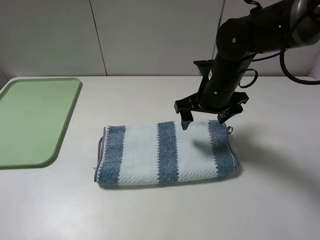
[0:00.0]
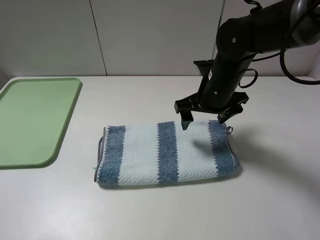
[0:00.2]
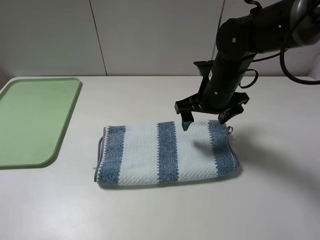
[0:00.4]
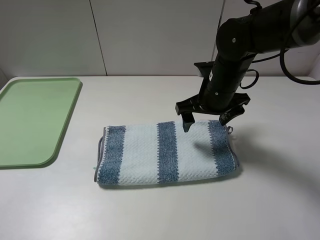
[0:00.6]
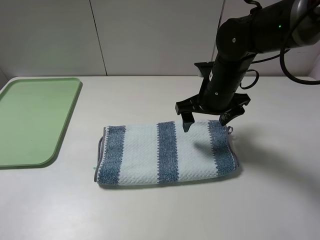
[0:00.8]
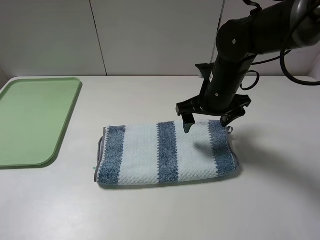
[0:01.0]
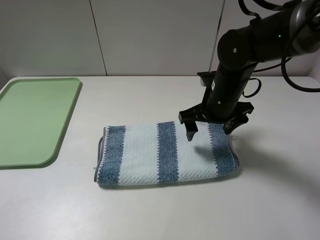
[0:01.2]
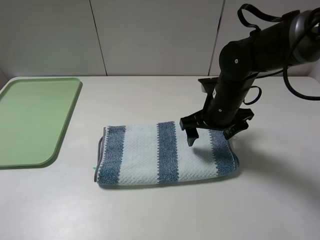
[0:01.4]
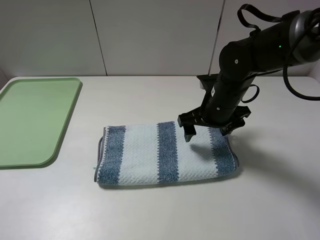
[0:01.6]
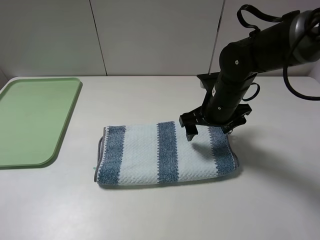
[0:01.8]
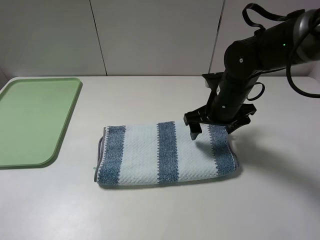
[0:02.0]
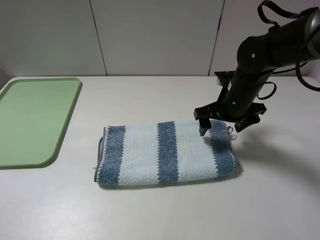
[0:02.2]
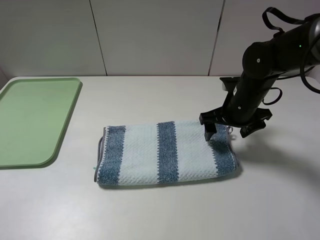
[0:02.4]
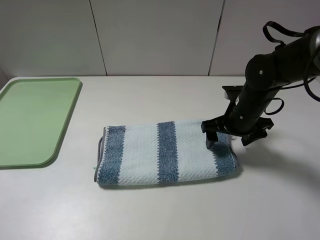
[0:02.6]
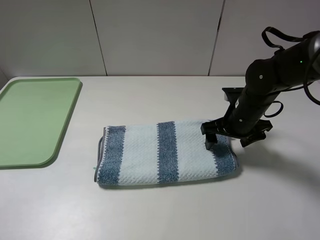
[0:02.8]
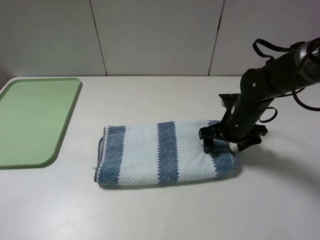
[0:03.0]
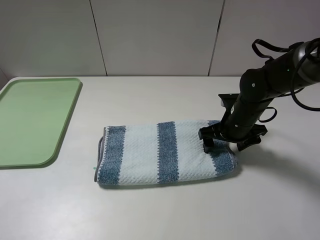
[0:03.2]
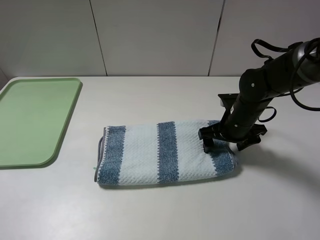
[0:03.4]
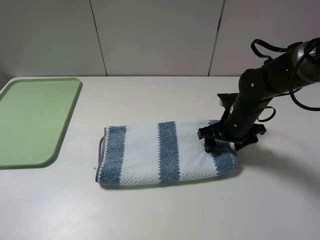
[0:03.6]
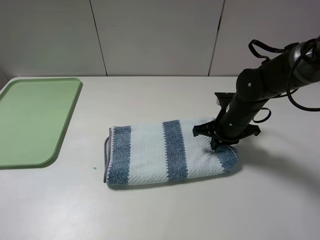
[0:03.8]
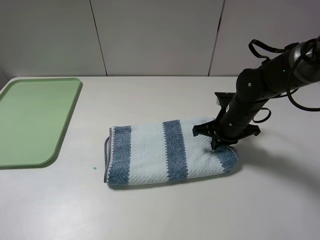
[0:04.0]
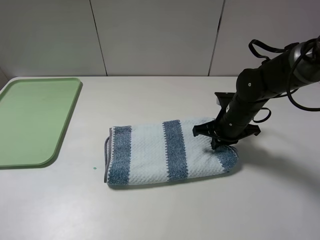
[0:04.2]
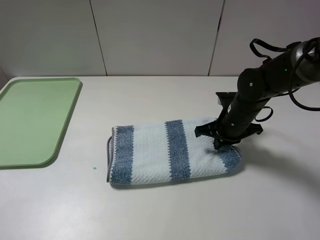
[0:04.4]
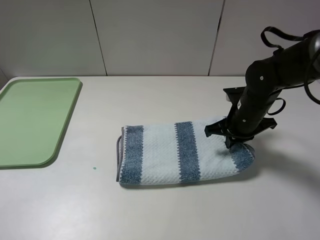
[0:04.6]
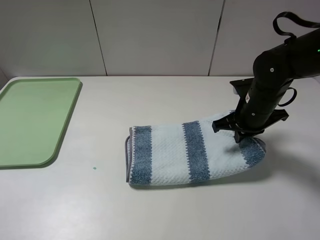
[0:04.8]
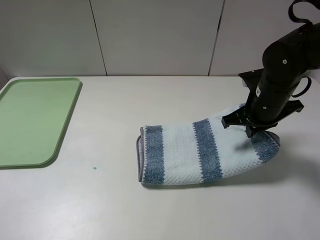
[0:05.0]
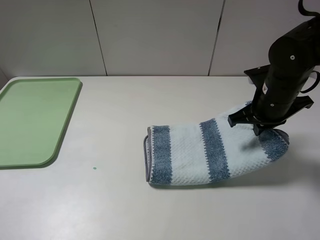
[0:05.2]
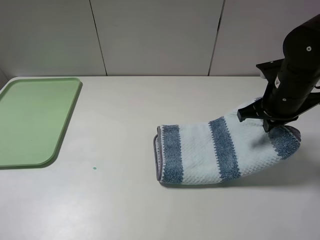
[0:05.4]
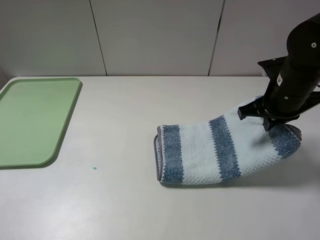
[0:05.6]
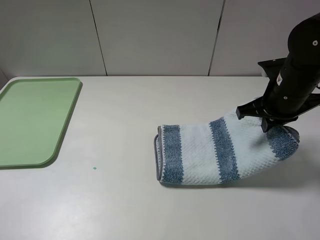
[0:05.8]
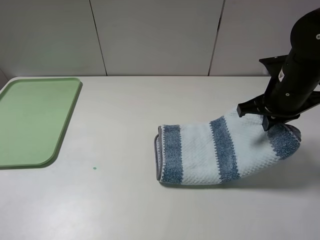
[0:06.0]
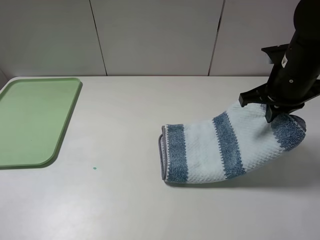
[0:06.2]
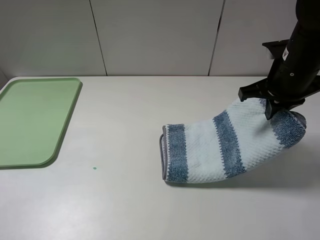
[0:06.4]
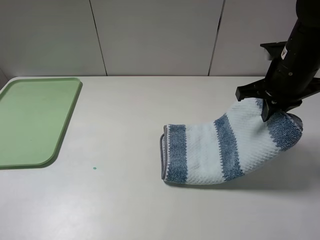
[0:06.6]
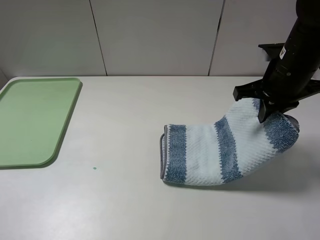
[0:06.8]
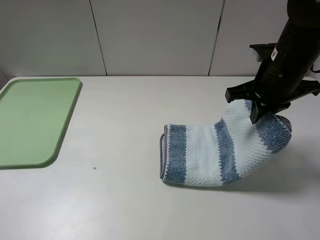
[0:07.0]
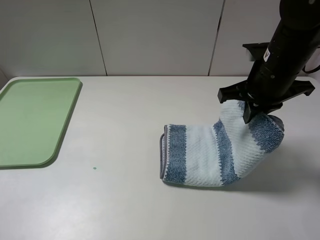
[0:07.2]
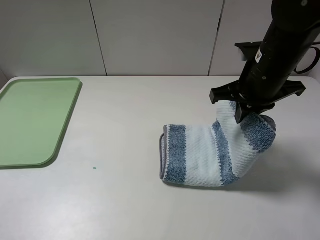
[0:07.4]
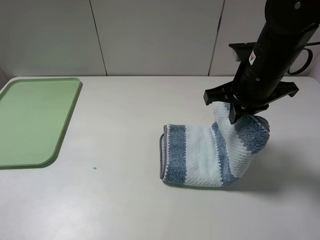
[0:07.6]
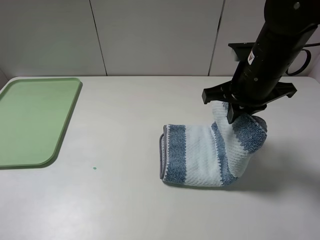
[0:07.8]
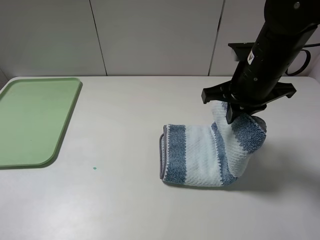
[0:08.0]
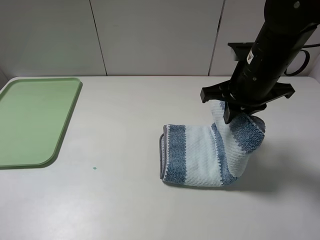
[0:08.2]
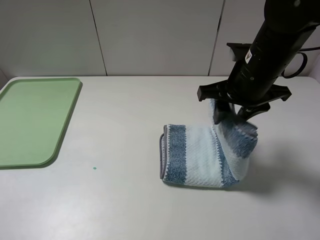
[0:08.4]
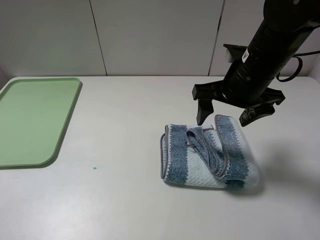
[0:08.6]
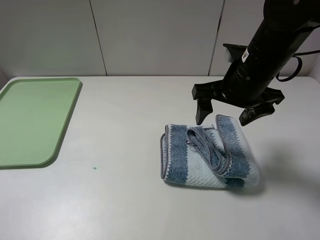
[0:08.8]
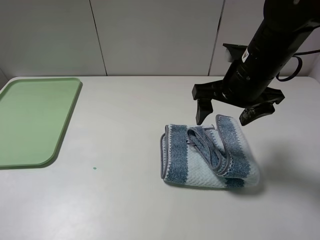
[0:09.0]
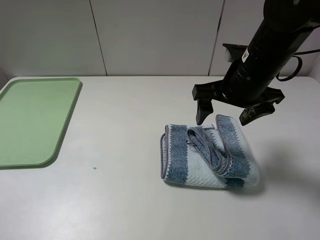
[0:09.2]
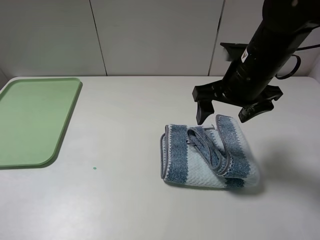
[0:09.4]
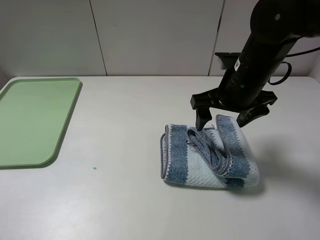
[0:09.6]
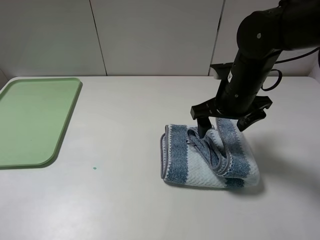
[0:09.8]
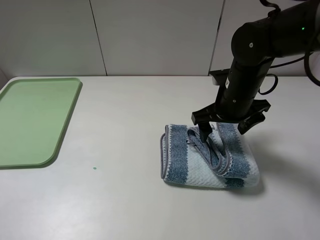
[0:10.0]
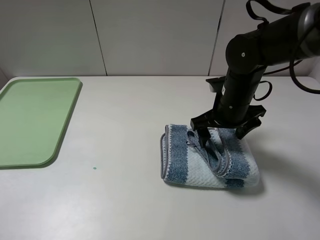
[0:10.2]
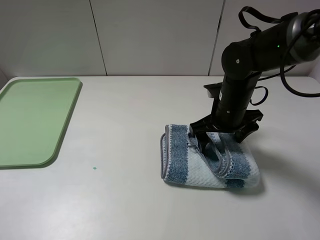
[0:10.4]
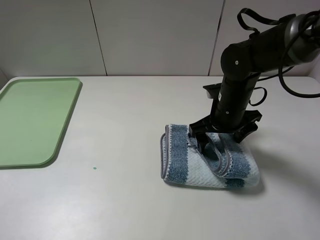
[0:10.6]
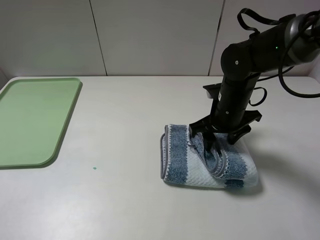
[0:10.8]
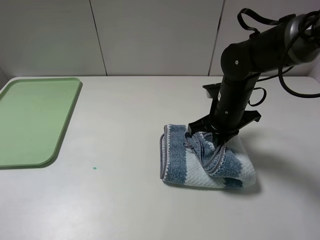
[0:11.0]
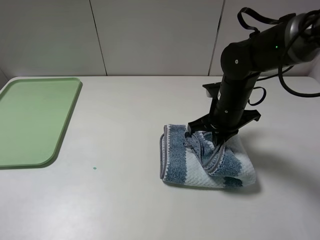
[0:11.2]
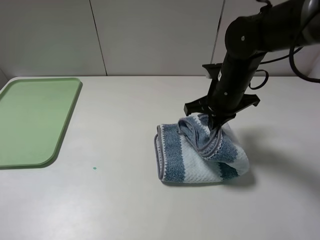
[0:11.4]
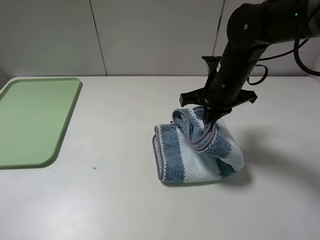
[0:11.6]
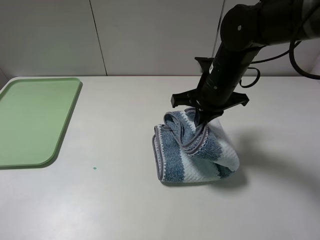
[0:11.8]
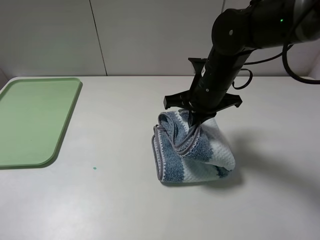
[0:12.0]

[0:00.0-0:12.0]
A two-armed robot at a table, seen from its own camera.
Step, 0:00.0 to 0:04.2: Grasp the blue white towel with the right gripper.
0:01.6 to 0:03.0: The right gripper is displaced to the right and downward by approximately 10 cm.
0:03.0 to 0:04.4: The right gripper closes.
0:04.4 to 0:06.0: The right gripper travels upward by roughly 10 cm.
0:06.0 to 0:07.6: The right gripper goes approximately 5 cm to the left.
0:07.6 to 0:09.0: The right gripper opens up.
0:09.0 to 0:10.4: The right gripper moves downward, approximately 10 cm.
0:10.4 to 0:12.0: The right gripper changes place by about 5 cm, and closes its fingers.

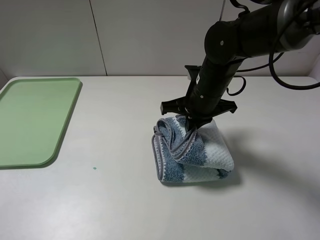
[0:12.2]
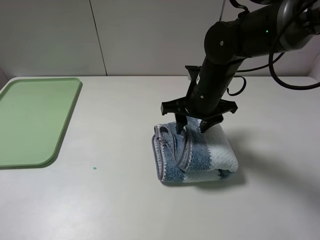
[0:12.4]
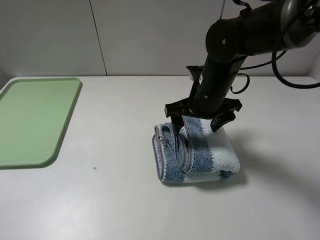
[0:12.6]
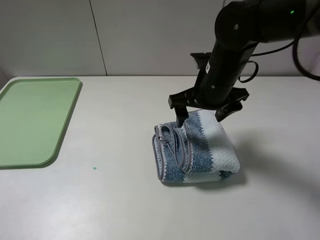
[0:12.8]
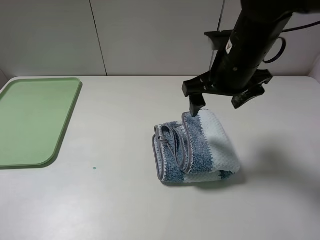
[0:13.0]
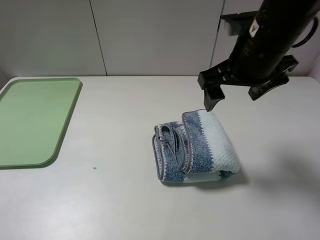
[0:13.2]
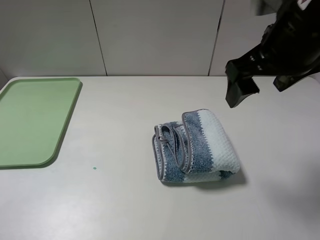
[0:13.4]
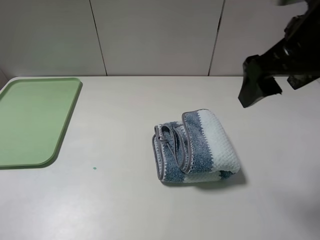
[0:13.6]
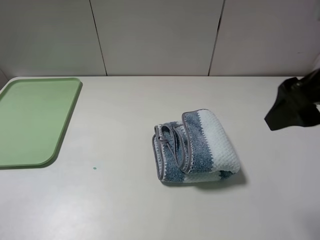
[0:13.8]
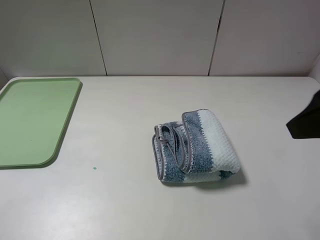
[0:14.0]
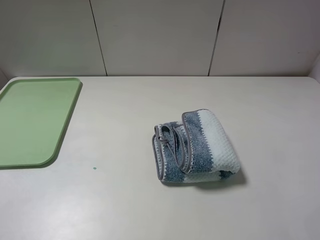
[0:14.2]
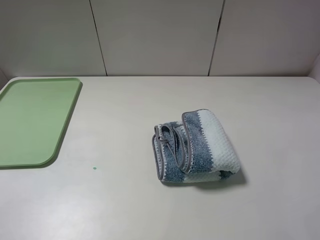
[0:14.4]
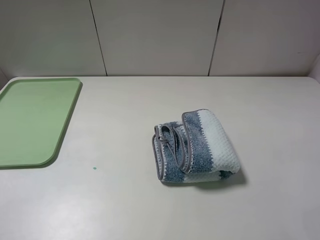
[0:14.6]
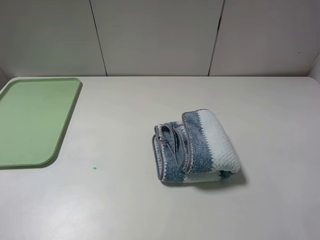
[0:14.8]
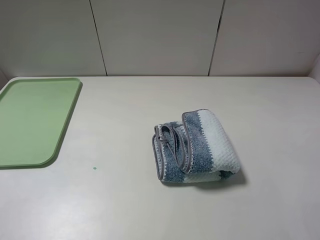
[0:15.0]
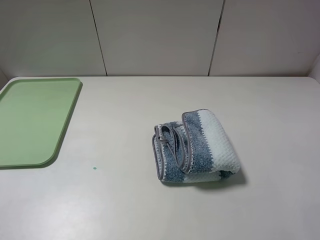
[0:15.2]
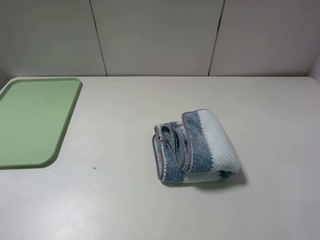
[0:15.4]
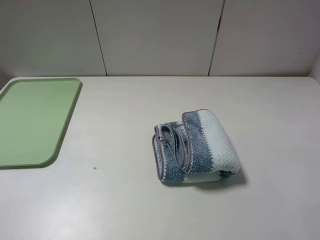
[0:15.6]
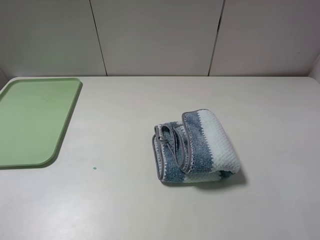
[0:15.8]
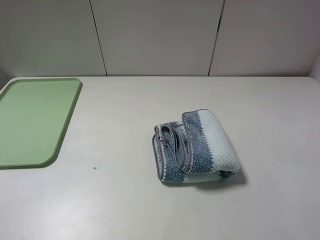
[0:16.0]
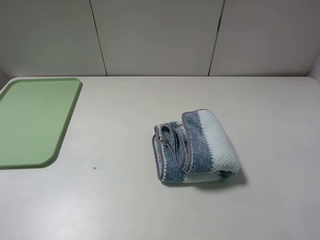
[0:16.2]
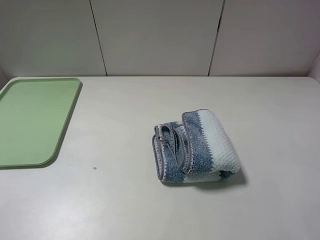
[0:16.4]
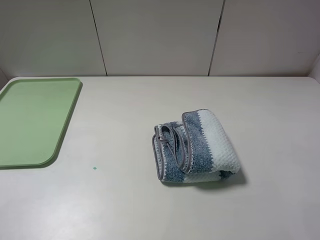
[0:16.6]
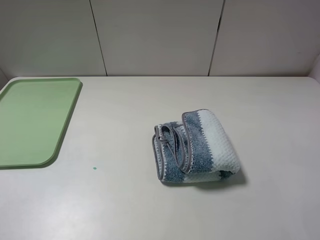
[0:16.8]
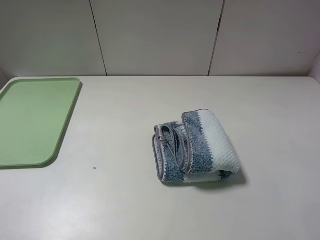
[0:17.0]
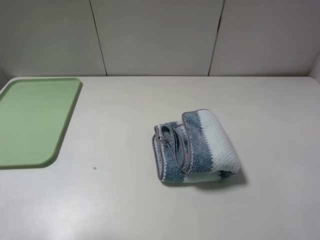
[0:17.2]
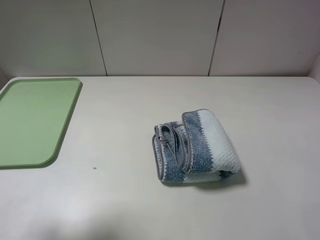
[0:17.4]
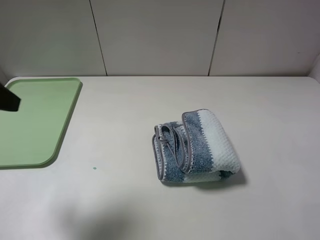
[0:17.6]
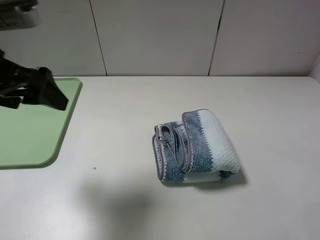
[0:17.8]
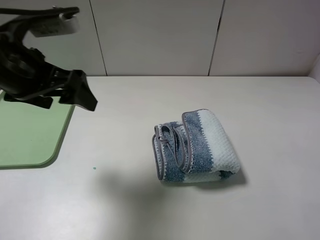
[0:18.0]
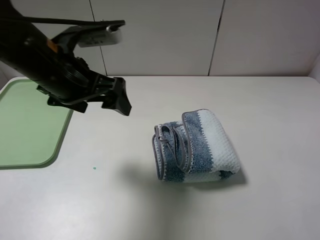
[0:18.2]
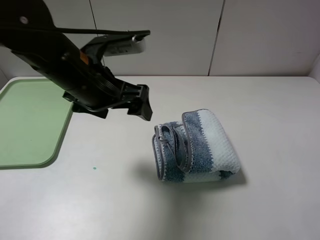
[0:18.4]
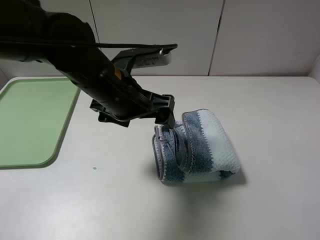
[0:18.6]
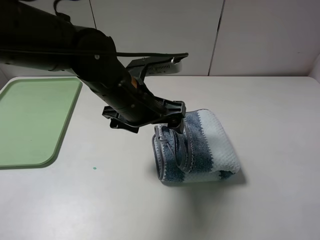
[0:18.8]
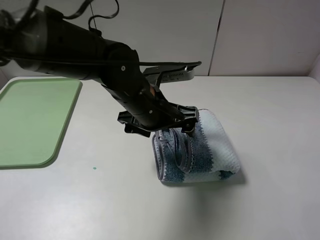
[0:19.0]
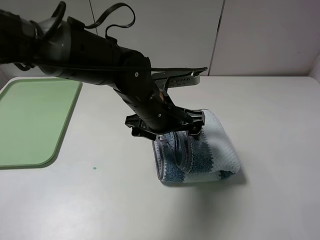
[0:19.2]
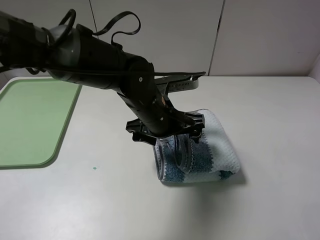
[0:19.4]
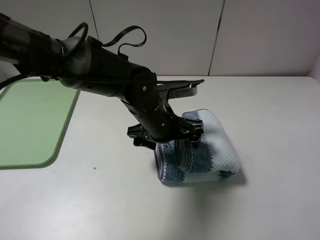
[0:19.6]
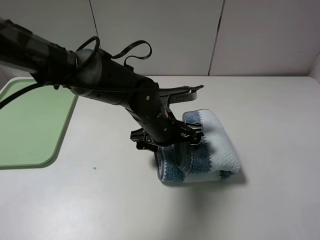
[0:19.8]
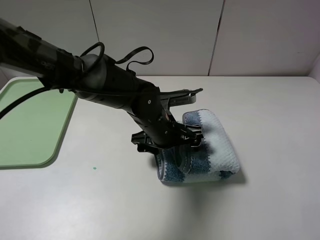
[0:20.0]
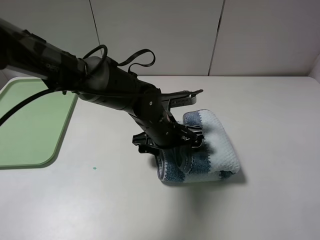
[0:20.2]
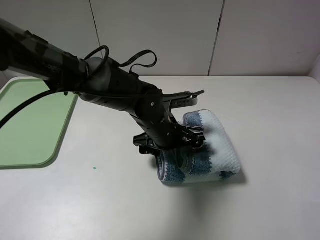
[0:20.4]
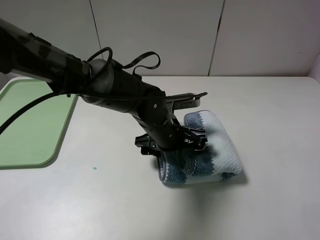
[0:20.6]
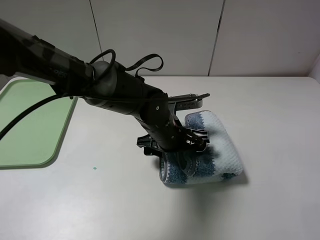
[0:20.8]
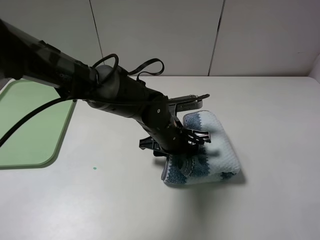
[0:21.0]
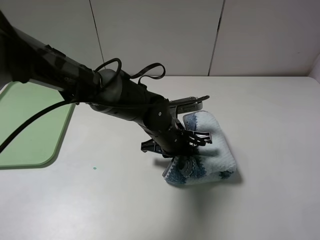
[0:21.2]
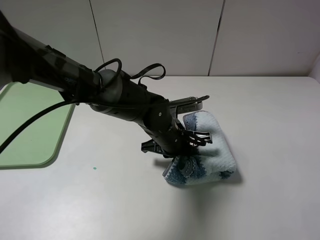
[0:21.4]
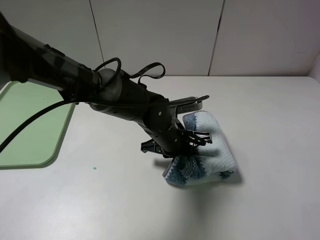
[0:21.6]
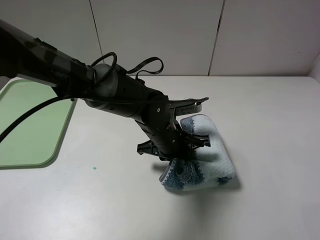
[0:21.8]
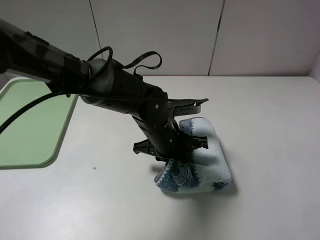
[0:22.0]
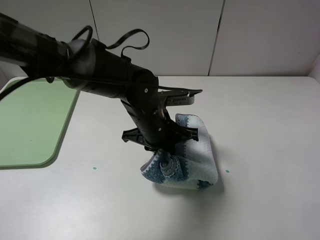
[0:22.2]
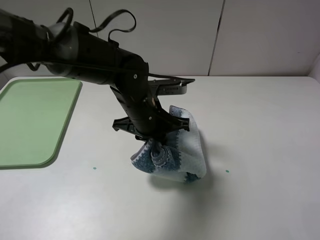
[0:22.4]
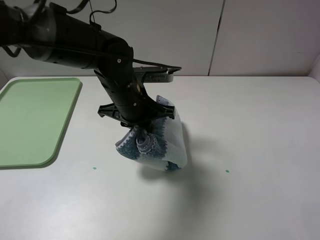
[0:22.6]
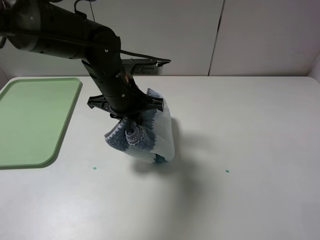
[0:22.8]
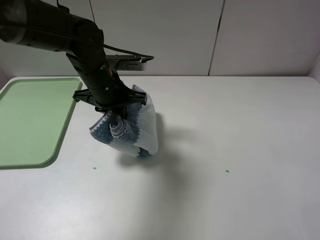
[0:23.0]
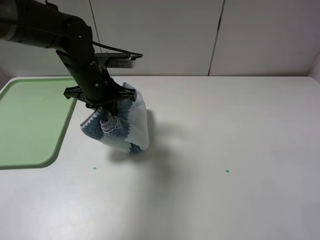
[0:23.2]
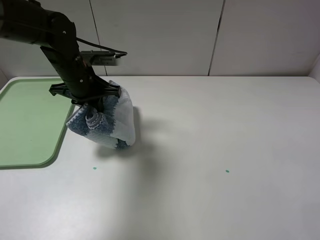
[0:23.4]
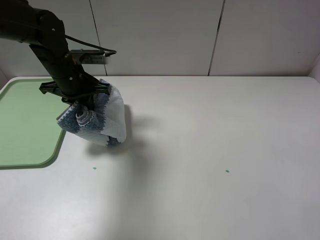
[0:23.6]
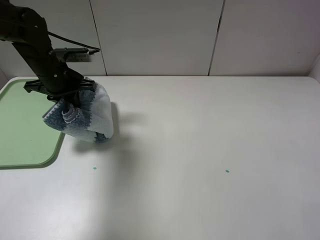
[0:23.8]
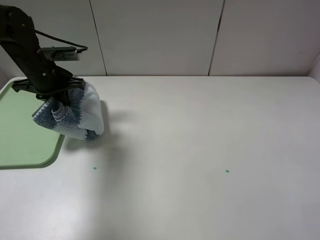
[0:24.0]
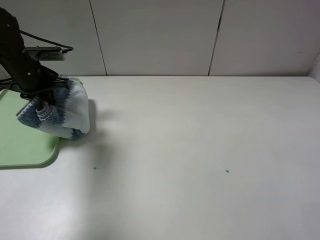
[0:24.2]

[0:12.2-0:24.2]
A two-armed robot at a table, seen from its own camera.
Step, 0:13.4 to 0:21.2: Grasp the blue white towel with the left gripper.
0:12.2 to 0:13.8: The right gripper shifts about 25 cm upward, backward and to the right, and opens up.
0:13.8 to 0:15.2: The right gripper is displaced backward and to the right by approximately 20 cm.
0:15.2 to 0:16.6: Both grippers stay about where they are.
0:16.6 to 0:18.2: The left gripper goes approximately 30 cm forward and to the right.
0:18.2 to 0:19.8: The left gripper goes approximately 20 cm to the right and downward.
0:19.8 to 0:21.2: The left gripper closes.
0:21.2 to 0:22.6: The left gripper is displaced upward and to the left by roughly 10 cm.
0:22.6 to 0:24.2: The left gripper is displaced to the left by approximately 25 cm.
